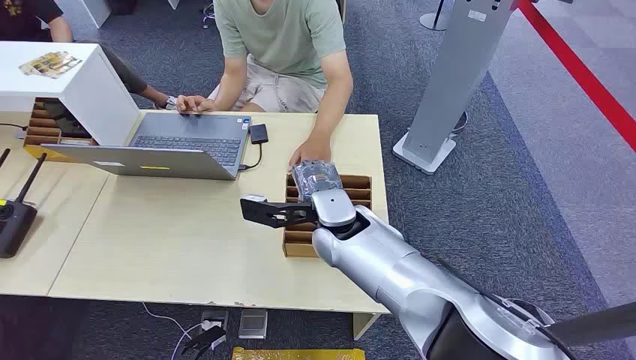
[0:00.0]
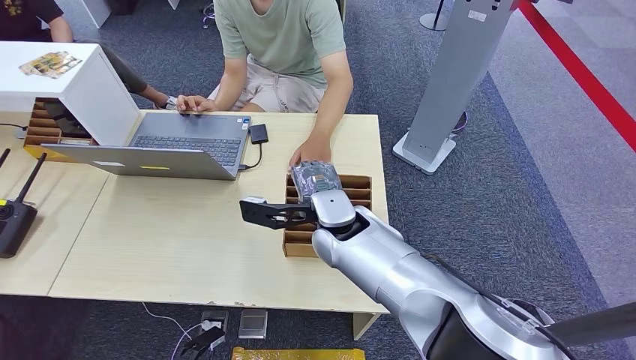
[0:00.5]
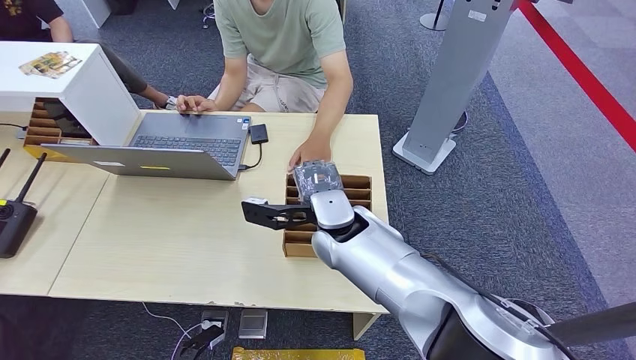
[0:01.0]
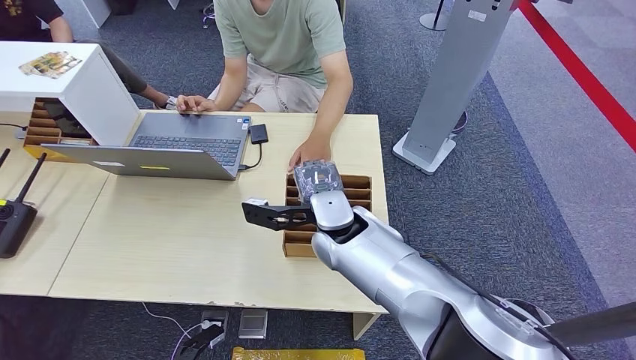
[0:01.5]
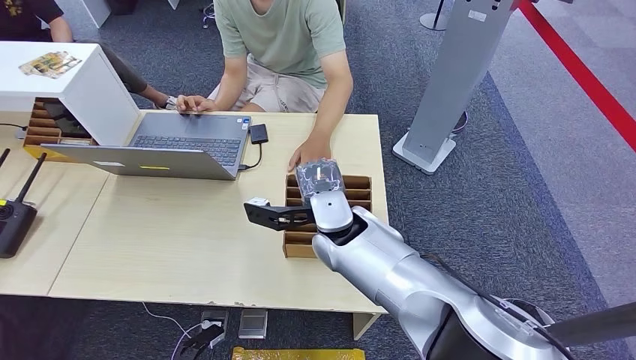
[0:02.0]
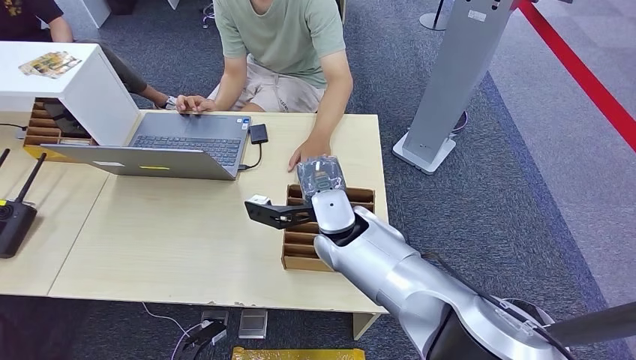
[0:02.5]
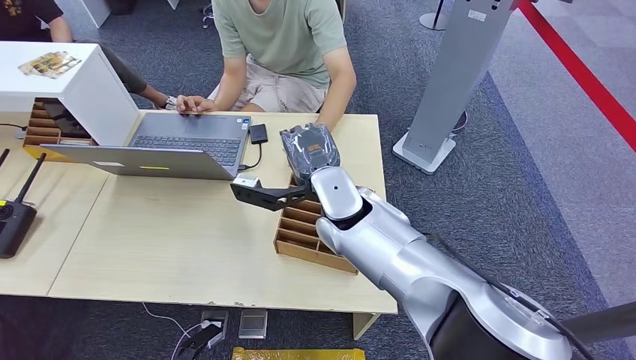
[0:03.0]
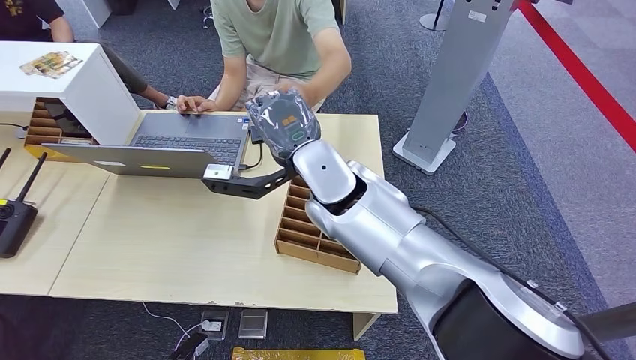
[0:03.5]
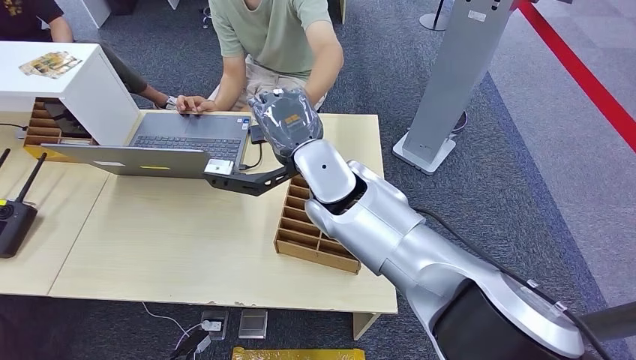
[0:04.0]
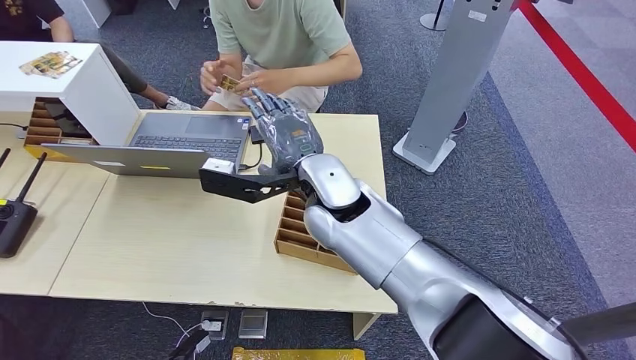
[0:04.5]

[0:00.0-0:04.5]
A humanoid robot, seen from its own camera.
Step, 0:00.0 to 0:03.0: Pick up the key card from the card box.
Step, 0:03.5 to 0:04.5: Hand the key card to the target.
0:02.0 to 0:04.5: The right hand shifts approximately 10 cm upward.
